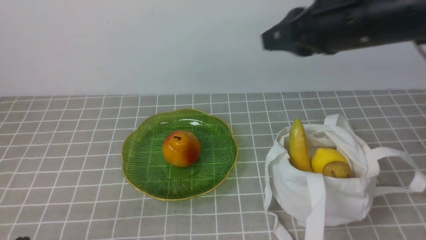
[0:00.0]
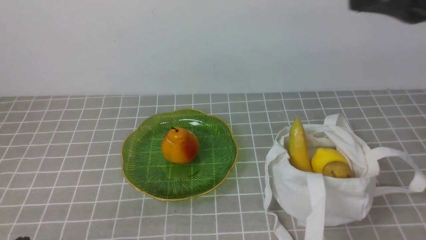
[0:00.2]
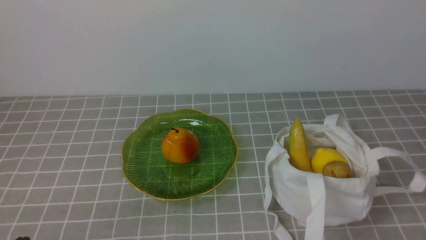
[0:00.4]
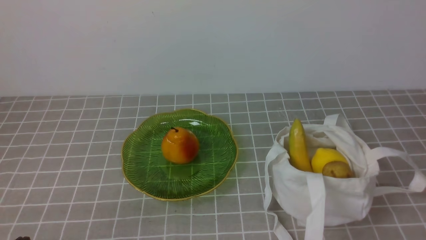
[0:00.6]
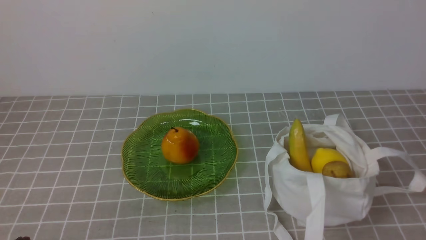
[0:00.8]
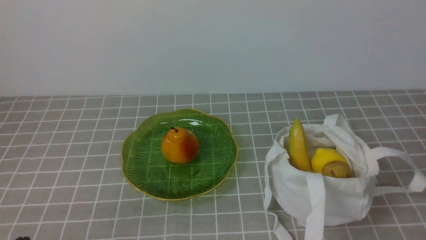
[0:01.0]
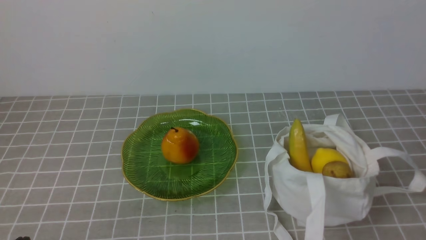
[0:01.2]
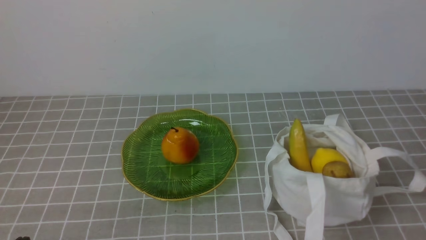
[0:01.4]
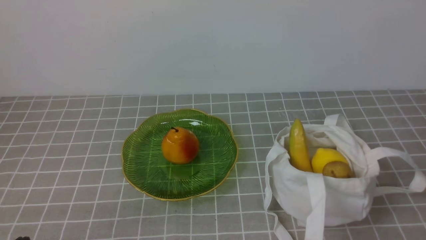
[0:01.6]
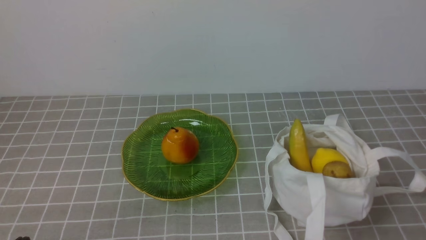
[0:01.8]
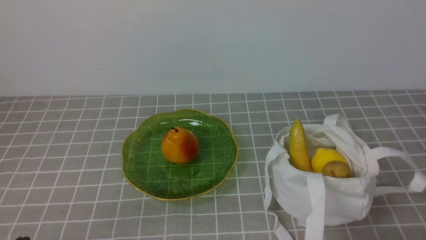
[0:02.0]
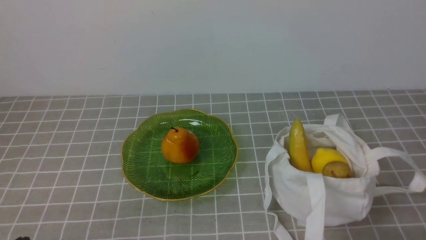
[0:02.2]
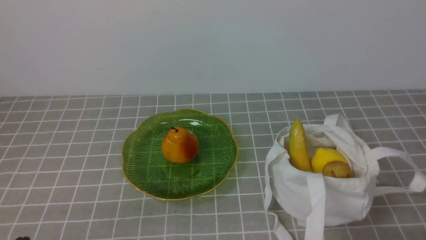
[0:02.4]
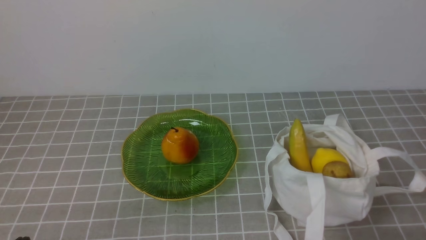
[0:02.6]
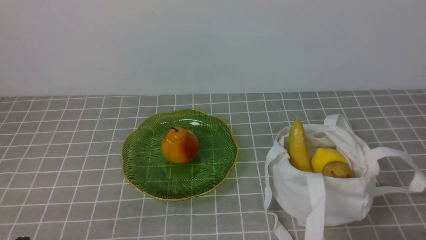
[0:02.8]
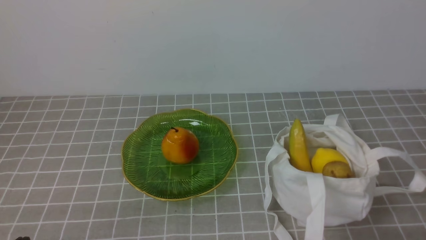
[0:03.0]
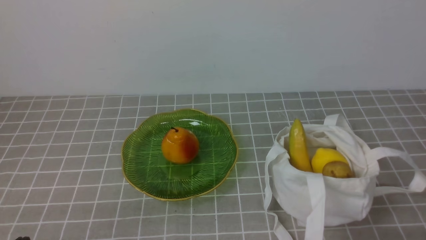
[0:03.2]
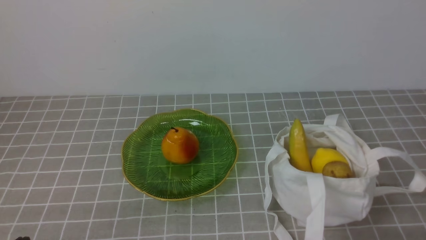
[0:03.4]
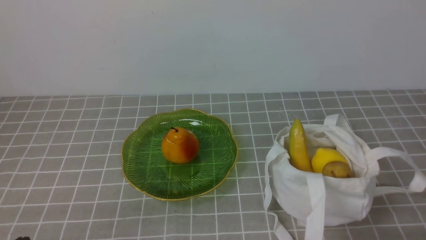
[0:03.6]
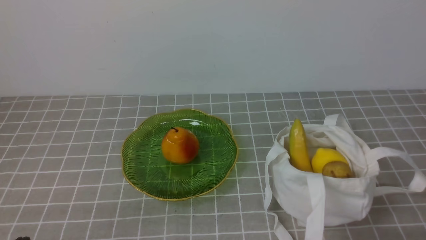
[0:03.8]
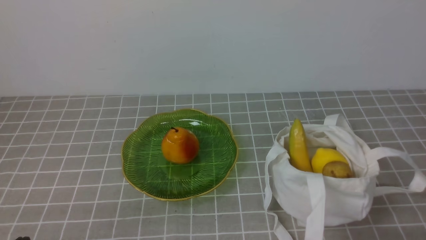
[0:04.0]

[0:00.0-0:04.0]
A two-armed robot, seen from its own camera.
0:00.0 to 0:01.4: The right gripper travels backward, to the right and downward by some 30 cm.
0:02.6 to 0:04.0: Both grippers stay put.

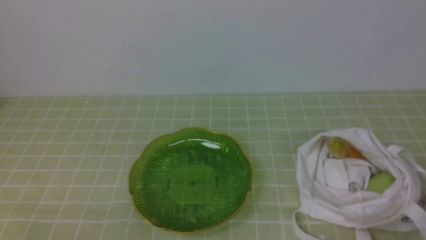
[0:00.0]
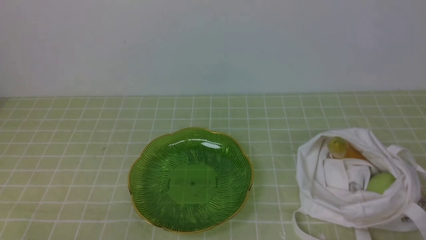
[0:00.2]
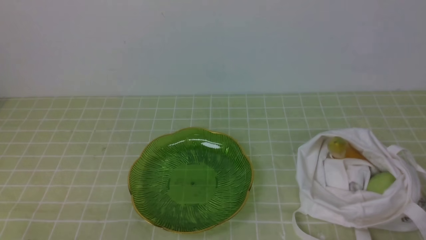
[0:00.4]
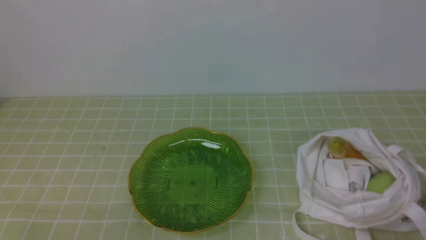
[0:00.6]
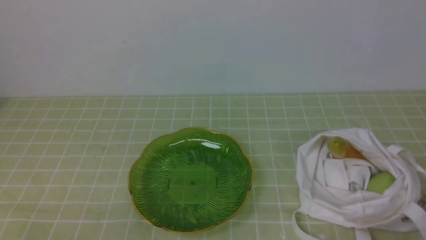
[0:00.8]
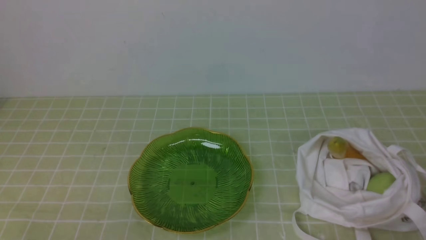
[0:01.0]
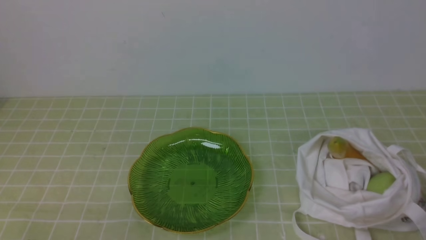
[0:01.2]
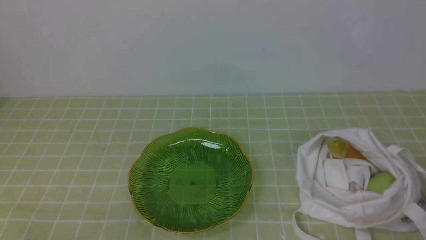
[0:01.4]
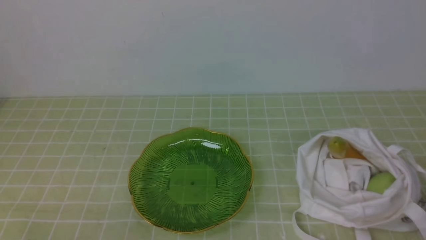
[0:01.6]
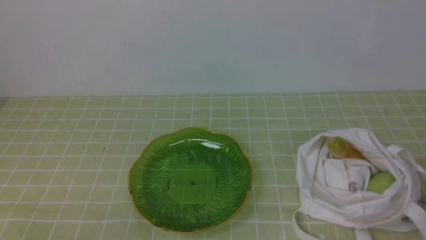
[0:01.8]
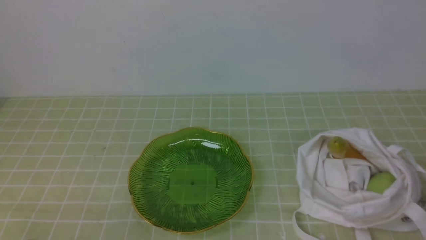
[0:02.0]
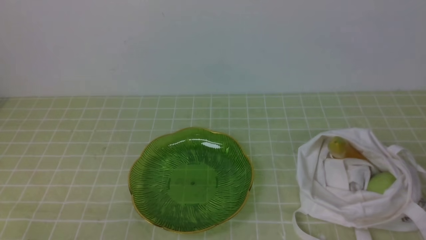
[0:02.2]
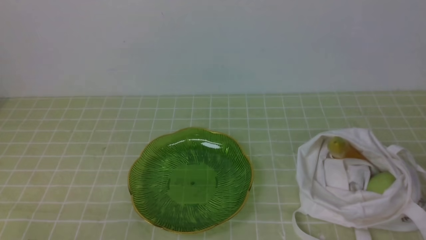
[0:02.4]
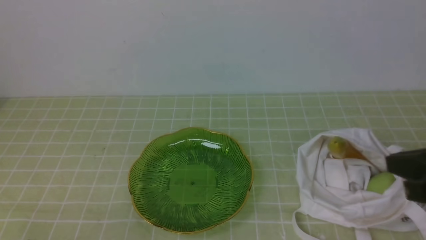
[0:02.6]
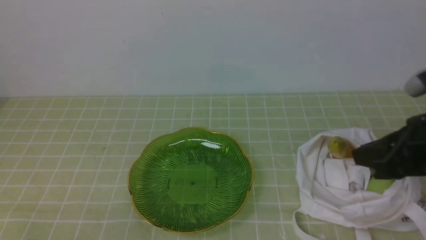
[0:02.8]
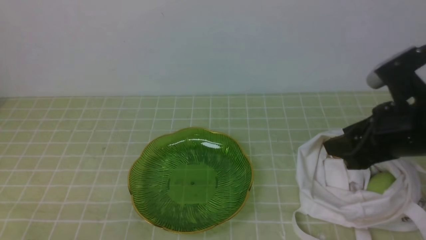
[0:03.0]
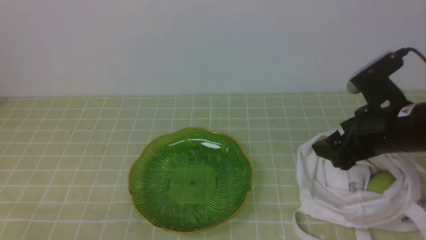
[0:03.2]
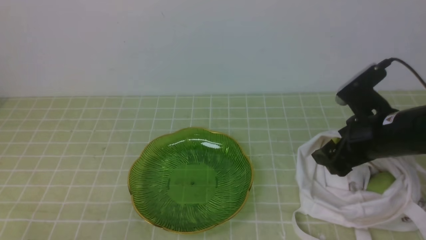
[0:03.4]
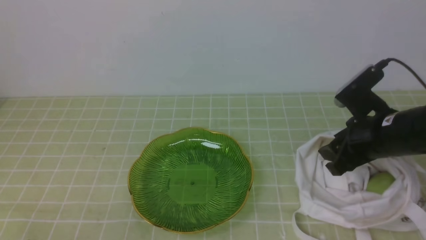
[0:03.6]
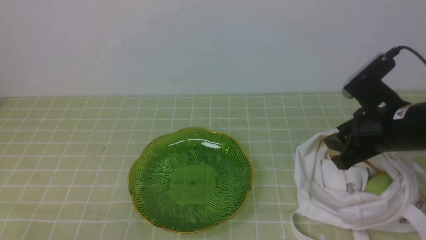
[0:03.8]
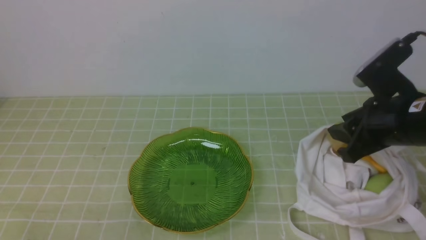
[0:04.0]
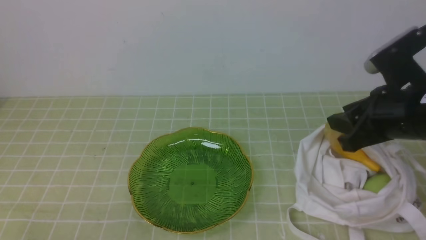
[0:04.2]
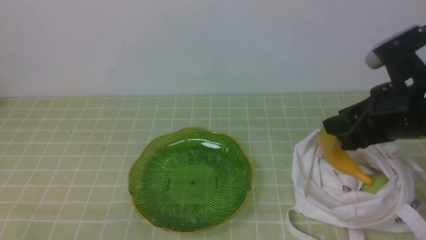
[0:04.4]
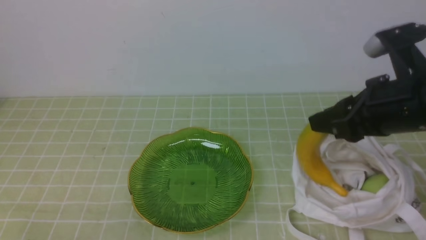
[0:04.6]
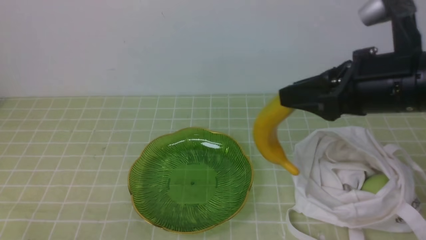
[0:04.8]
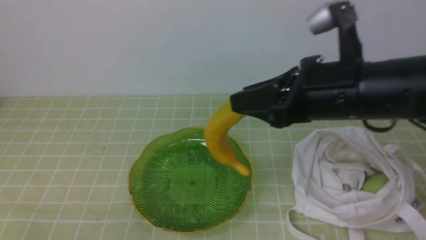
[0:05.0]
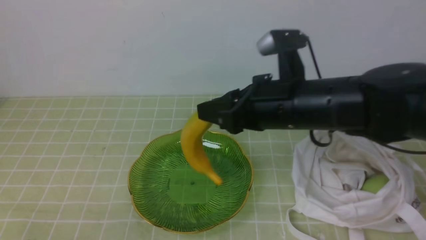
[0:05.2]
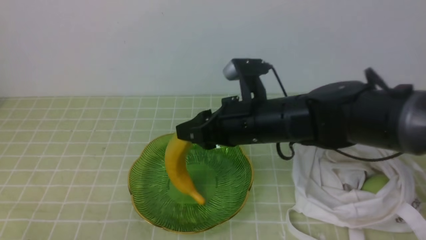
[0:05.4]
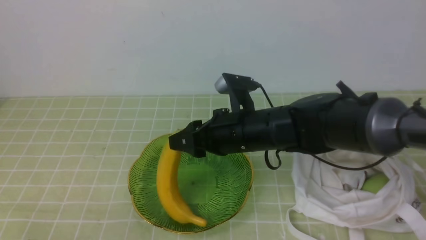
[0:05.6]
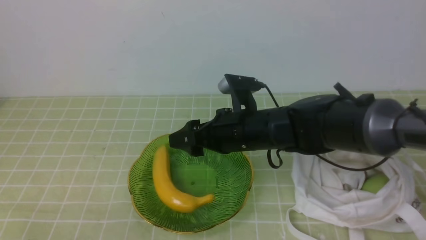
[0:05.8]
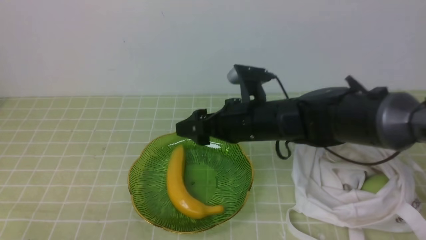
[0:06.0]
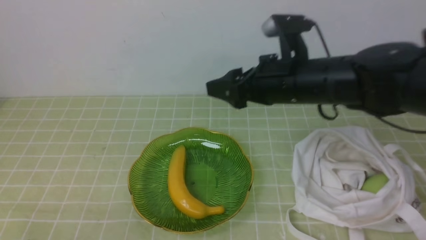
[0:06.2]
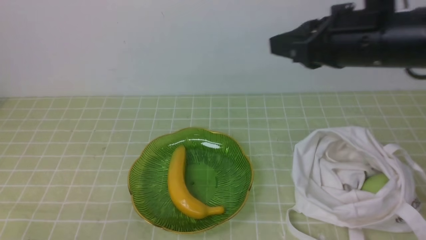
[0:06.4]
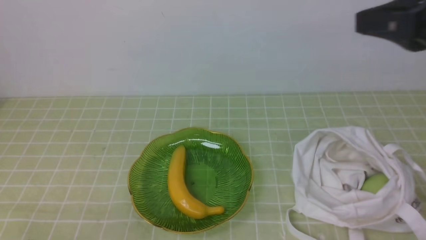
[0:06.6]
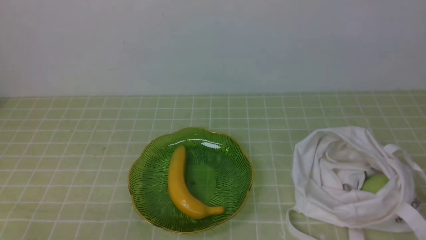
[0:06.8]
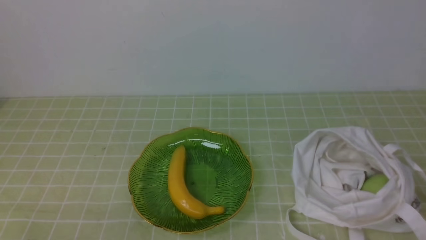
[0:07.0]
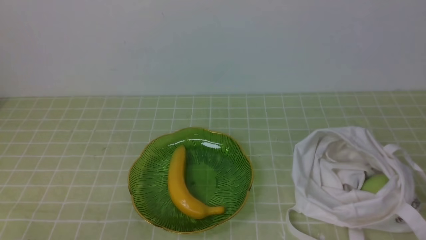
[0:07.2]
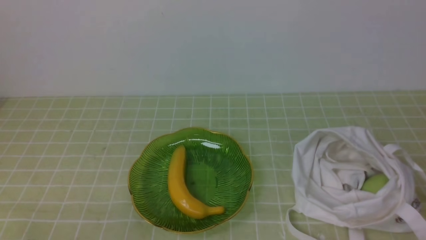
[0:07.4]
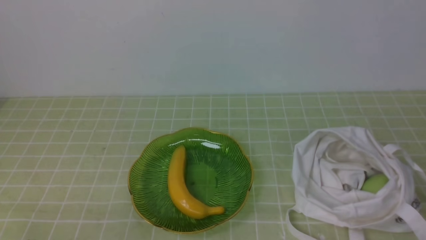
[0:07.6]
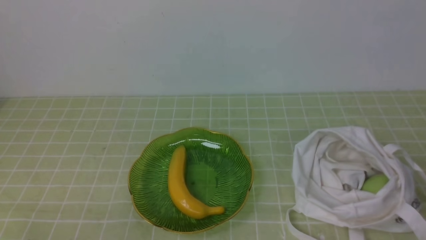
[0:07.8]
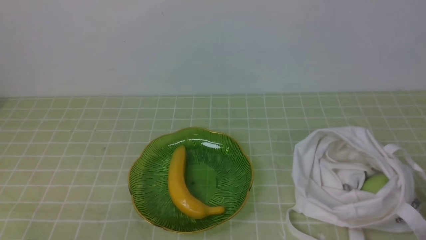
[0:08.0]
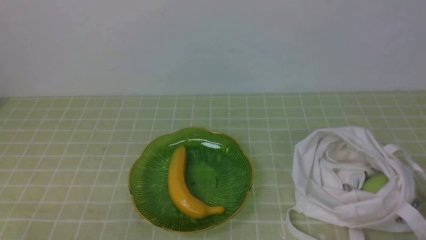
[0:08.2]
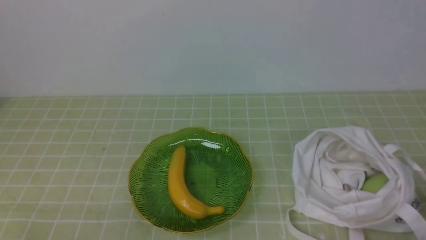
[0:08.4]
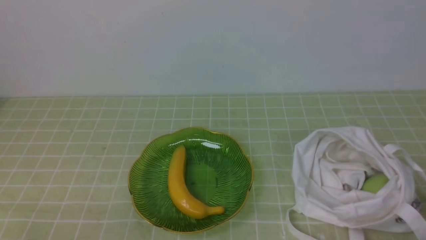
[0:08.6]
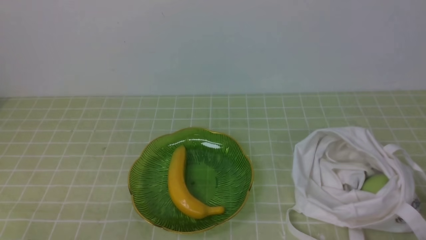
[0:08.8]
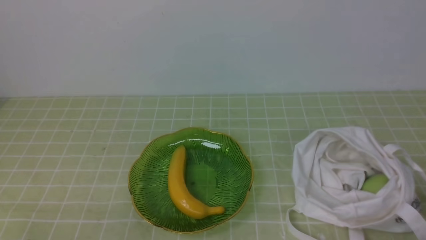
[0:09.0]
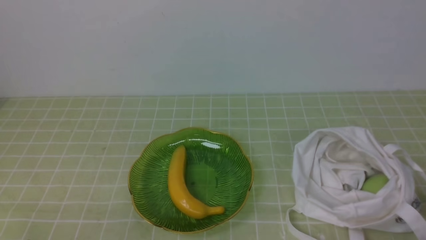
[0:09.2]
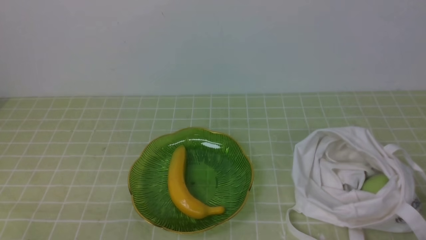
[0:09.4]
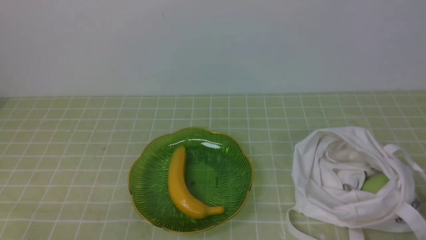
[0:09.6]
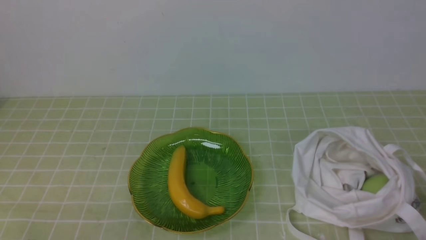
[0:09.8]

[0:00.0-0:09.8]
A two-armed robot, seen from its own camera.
Step, 0:00.0 to 0:04.2: use the right arm to grab a banana from the bag.
Step, 0:04.4 to 0:06.0: use the right arm to put the banana into the empty plate on the right.
0:01.4 to 0:02.8: The right gripper heads forward, upward and to the left, covering some 20 cm, and opens its fingers.
0:02.8 to 0:04.2: The right gripper opens, then closes again.
0:04.2 to 0:05.6: The right gripper goes some 20 cm to the left, and opens up.
0:05.6 to 0:07.0: The right gripper heads to the right, backward and upward, covering about 35 cm, and closes up.
0:08.4 to 0:09.8: Both grippers stay put.
